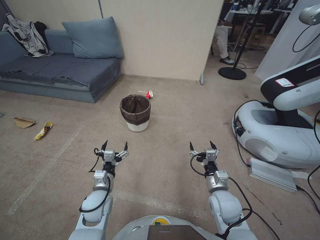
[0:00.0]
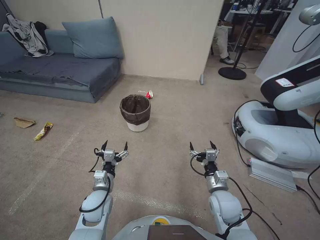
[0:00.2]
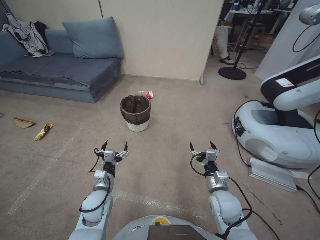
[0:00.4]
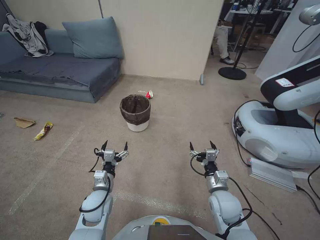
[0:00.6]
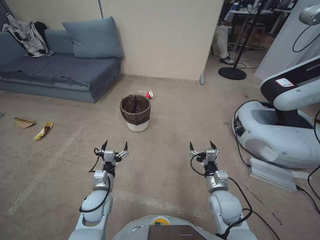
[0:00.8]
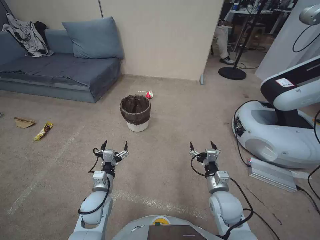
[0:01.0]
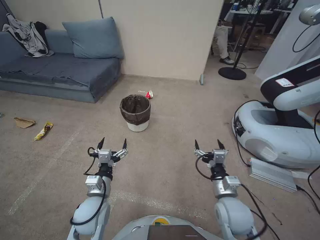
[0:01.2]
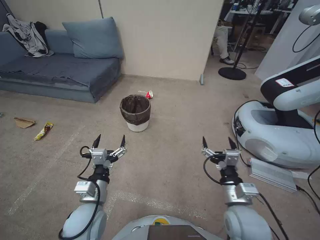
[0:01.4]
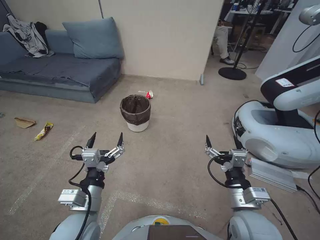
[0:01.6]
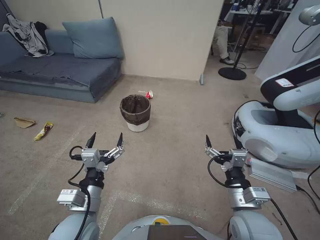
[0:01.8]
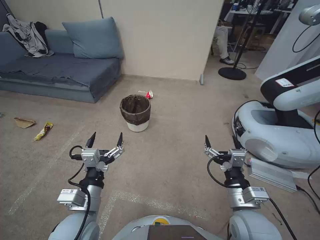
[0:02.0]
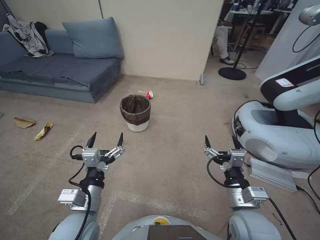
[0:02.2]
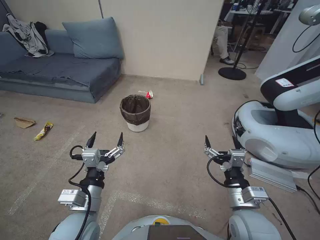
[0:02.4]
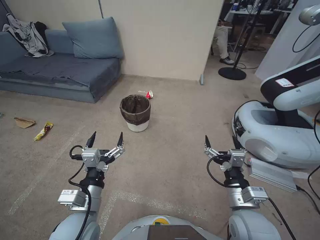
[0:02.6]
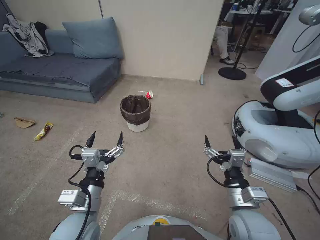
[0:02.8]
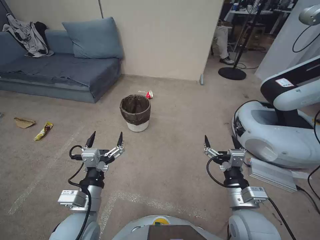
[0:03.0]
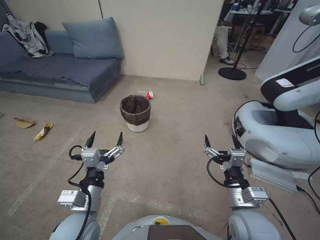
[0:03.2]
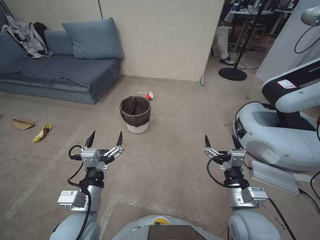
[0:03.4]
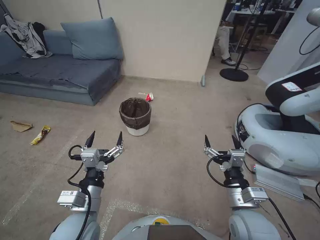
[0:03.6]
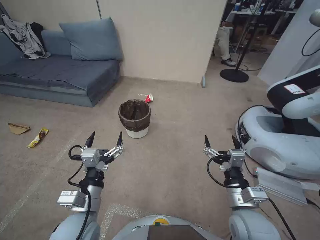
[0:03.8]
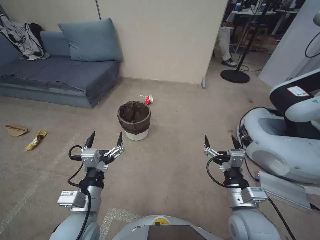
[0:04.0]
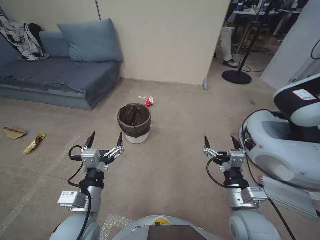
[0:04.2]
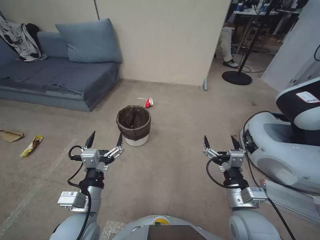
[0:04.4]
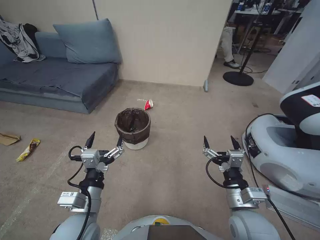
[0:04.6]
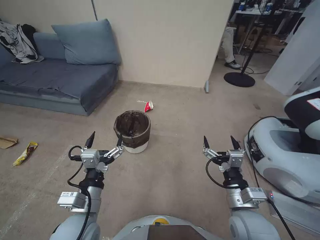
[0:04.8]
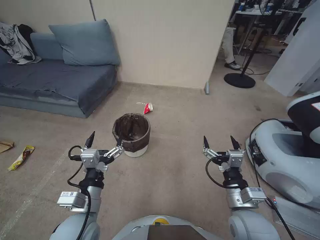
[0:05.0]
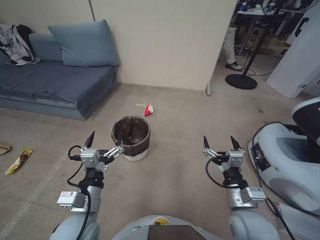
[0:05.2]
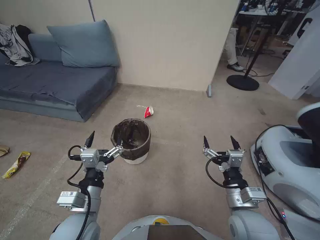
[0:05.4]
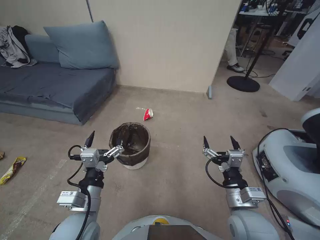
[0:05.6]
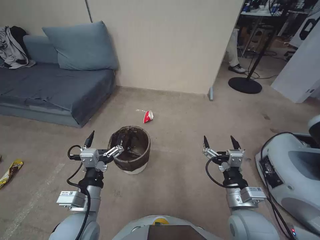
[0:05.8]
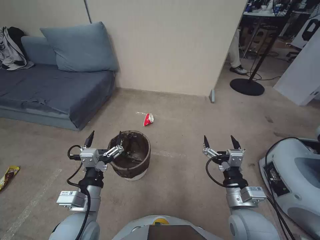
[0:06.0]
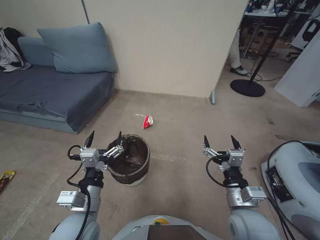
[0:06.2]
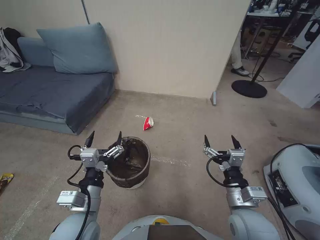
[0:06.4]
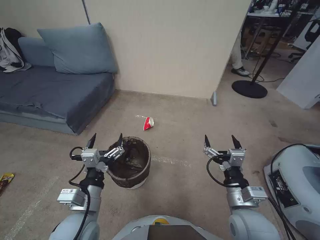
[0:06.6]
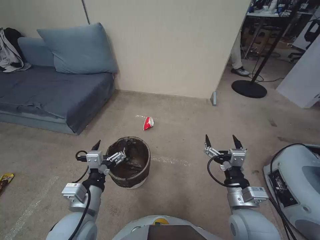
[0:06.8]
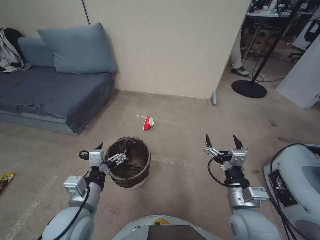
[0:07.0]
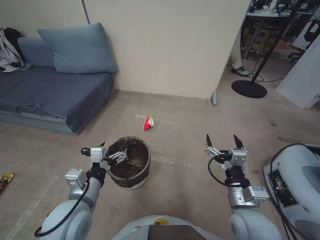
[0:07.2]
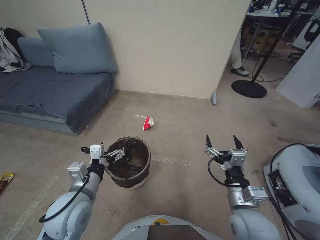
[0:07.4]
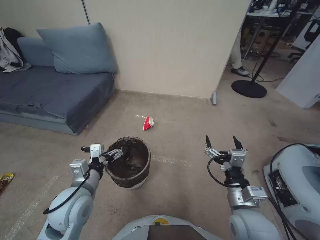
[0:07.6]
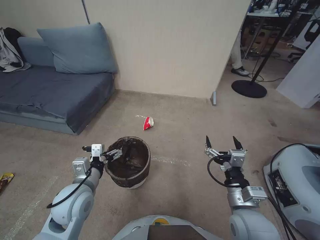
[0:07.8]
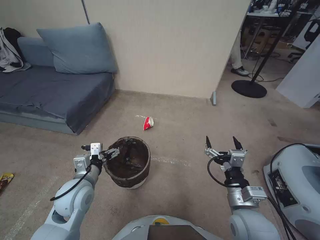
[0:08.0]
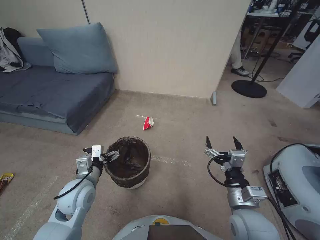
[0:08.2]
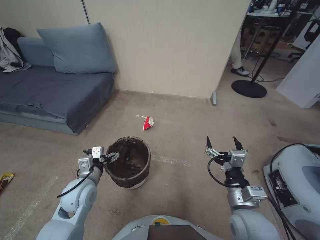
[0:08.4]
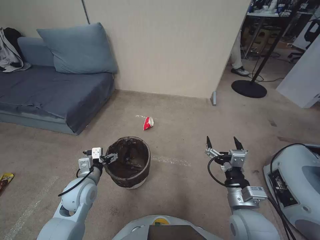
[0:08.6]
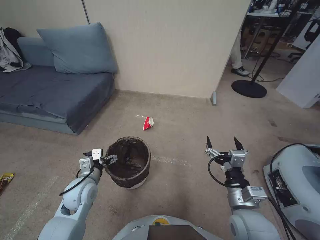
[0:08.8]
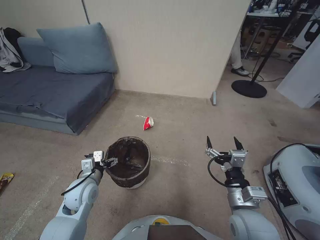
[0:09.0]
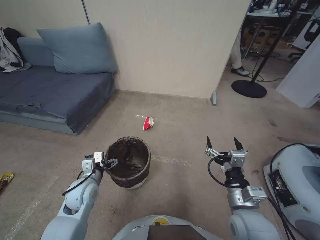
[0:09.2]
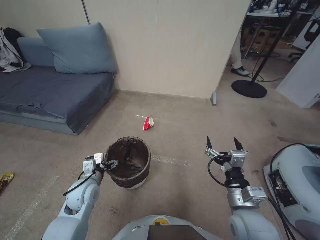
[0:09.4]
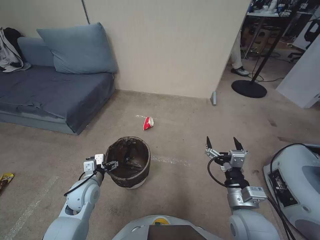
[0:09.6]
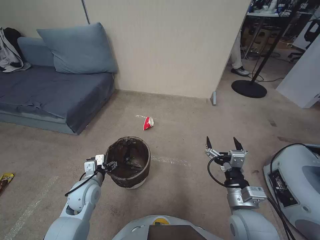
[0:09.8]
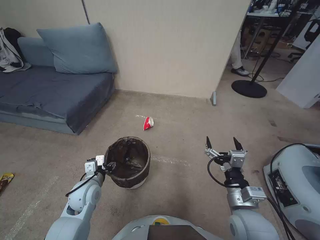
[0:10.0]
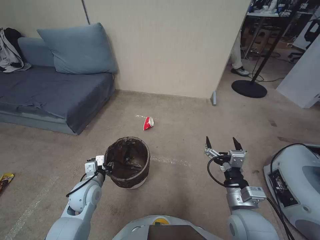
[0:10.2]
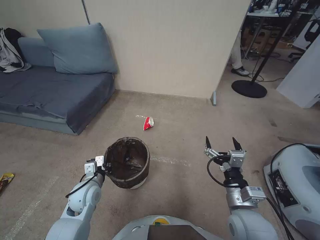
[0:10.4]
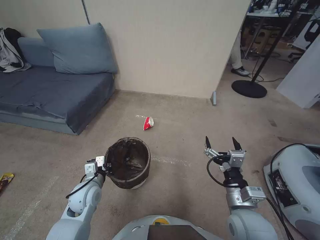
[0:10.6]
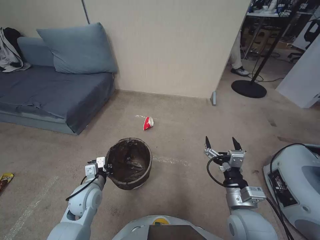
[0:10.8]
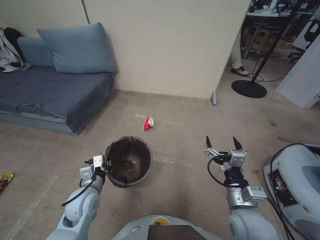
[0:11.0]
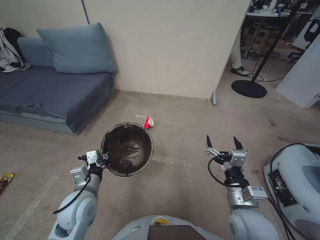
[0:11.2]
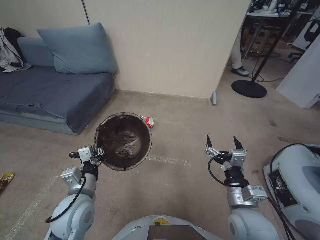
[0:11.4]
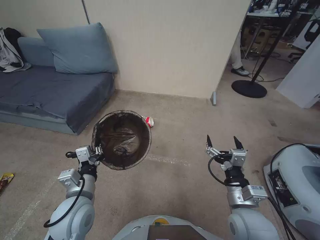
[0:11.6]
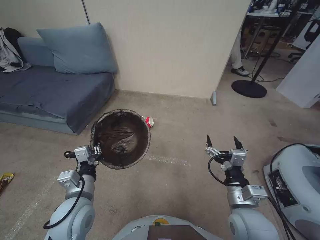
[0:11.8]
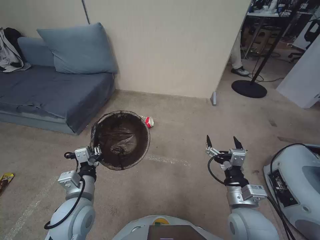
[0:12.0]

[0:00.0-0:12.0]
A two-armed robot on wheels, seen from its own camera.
Task of the whole recording: Pick up the trash bin, then pick up the garbage from the floor and place it into the trash bin.
0:01.6 to 0:03.0: Both grippers stay about where they are.
0:06.0 to 0:07.6: The left gripper is displaced forward by some 5 cm.
0:07.6 to 0:09.0: The left gripper is displaced downward and forward by about 10 cm.
0:09.0 to 0:10.4: The left gripper closes its fingers.
0:10.4 to 0:12.0: The left gripper shifts about 10 cm upward and backward.

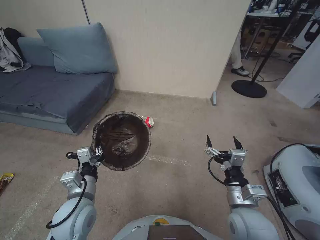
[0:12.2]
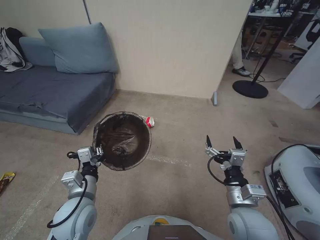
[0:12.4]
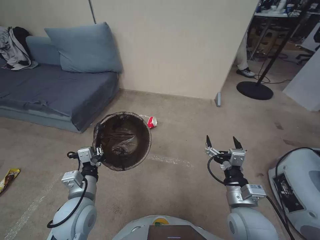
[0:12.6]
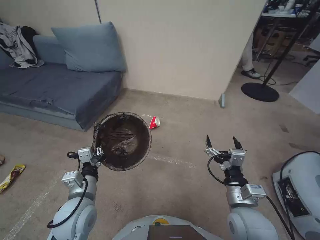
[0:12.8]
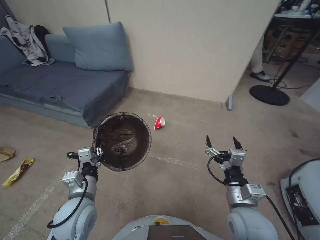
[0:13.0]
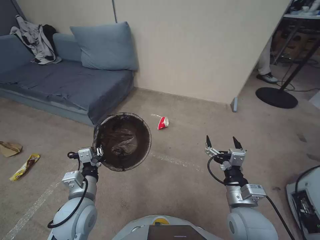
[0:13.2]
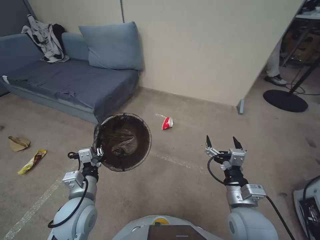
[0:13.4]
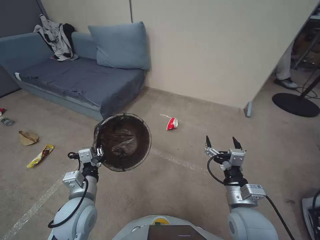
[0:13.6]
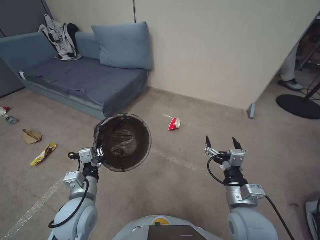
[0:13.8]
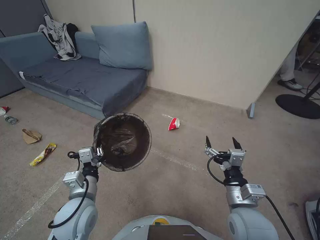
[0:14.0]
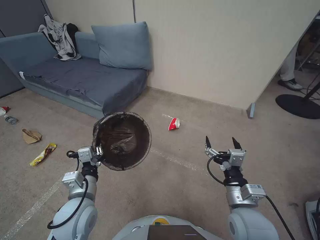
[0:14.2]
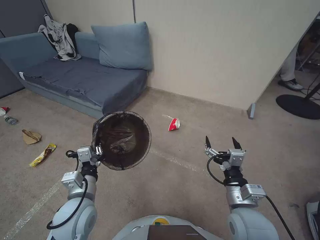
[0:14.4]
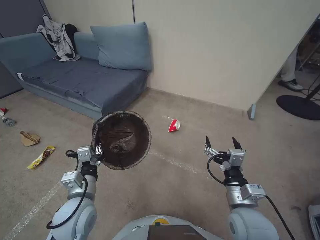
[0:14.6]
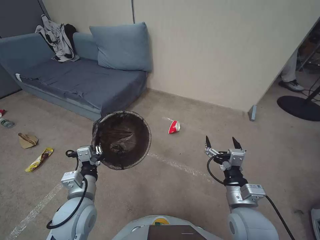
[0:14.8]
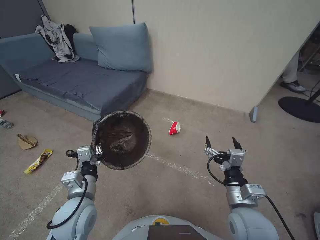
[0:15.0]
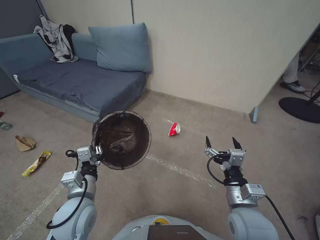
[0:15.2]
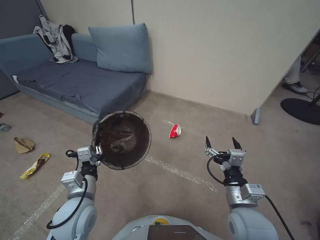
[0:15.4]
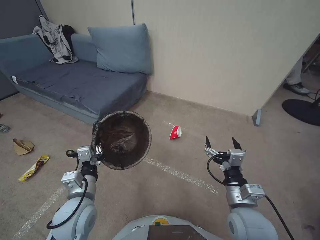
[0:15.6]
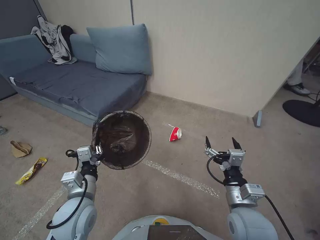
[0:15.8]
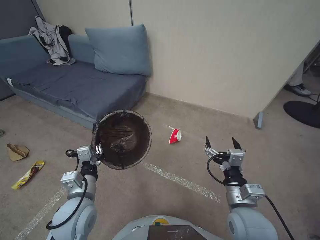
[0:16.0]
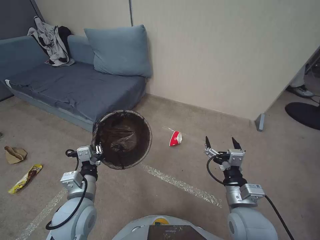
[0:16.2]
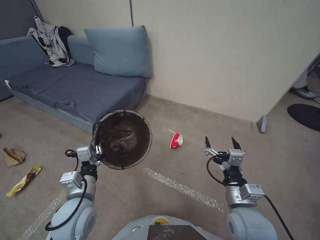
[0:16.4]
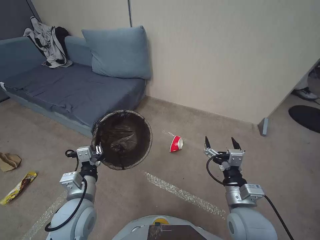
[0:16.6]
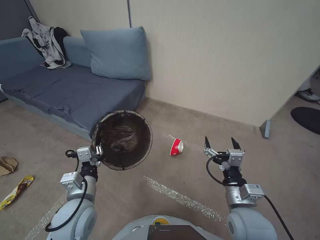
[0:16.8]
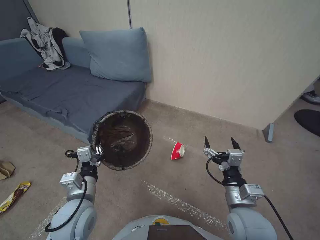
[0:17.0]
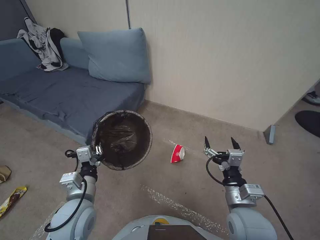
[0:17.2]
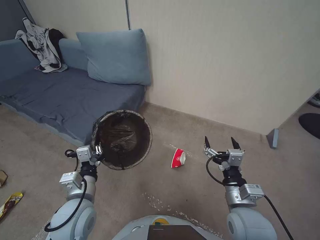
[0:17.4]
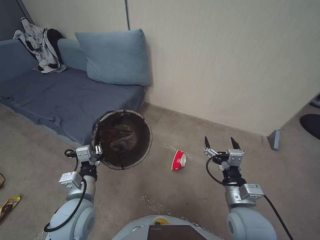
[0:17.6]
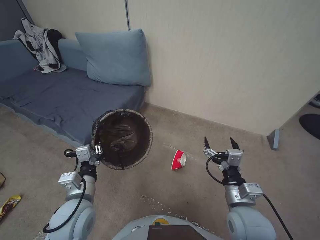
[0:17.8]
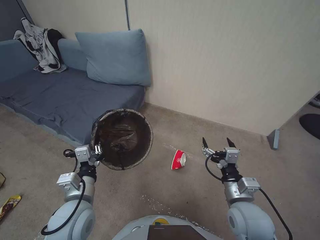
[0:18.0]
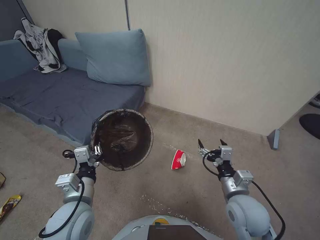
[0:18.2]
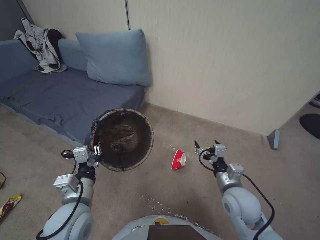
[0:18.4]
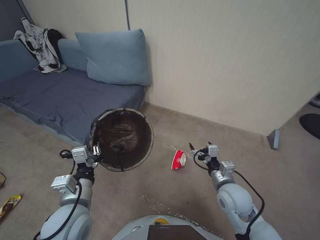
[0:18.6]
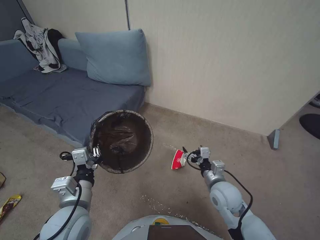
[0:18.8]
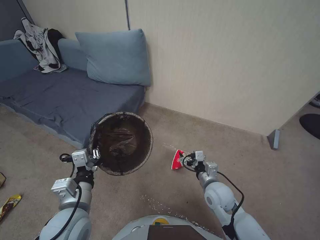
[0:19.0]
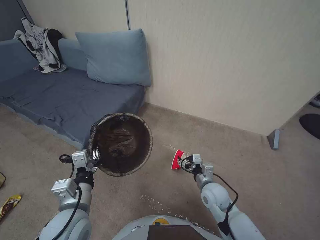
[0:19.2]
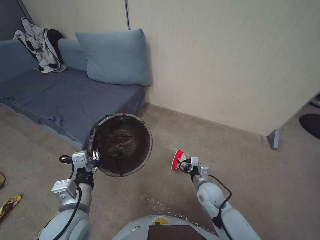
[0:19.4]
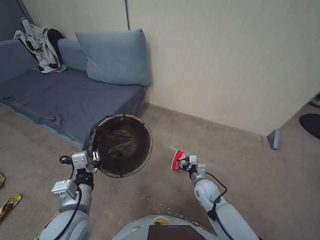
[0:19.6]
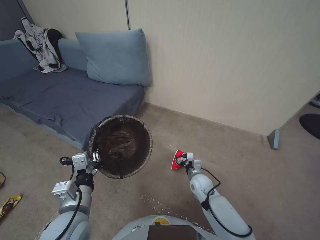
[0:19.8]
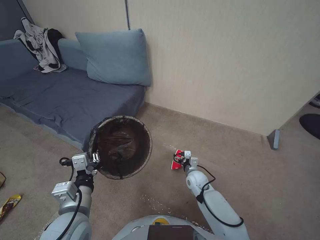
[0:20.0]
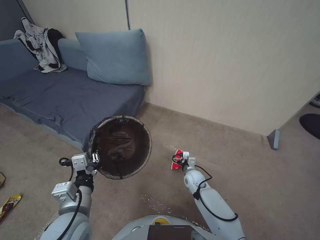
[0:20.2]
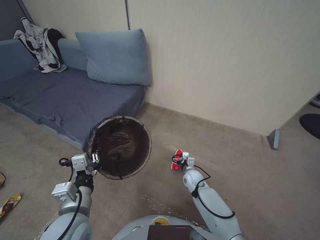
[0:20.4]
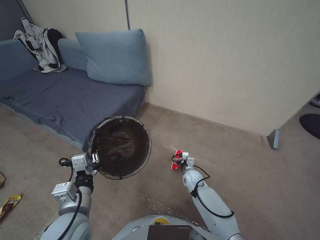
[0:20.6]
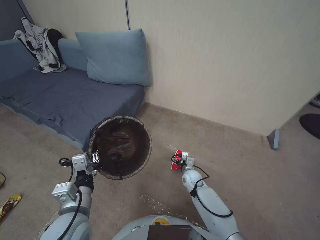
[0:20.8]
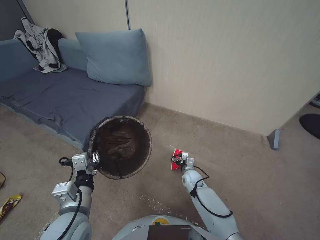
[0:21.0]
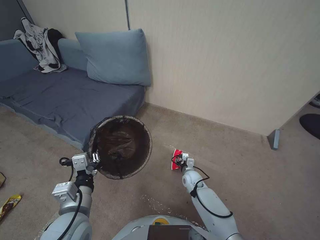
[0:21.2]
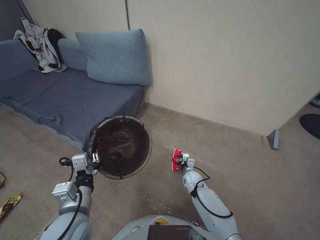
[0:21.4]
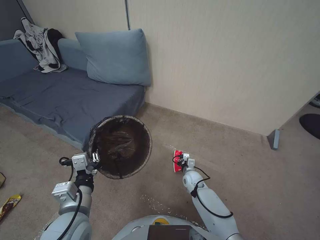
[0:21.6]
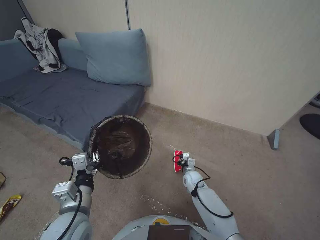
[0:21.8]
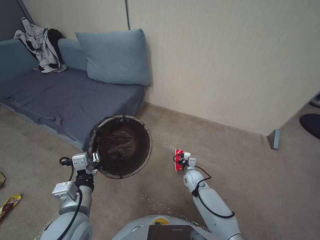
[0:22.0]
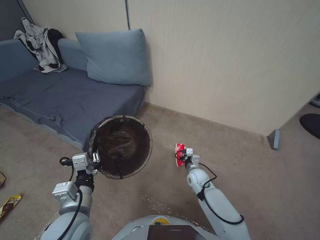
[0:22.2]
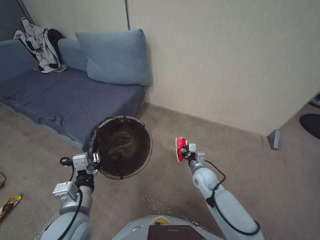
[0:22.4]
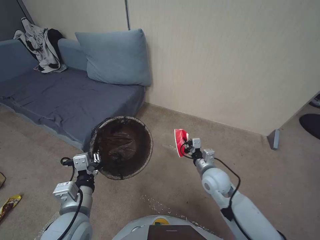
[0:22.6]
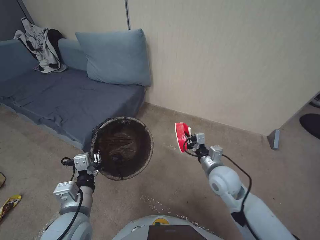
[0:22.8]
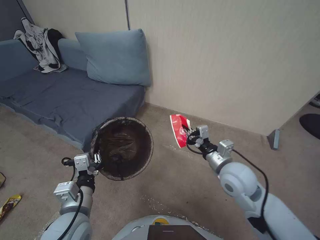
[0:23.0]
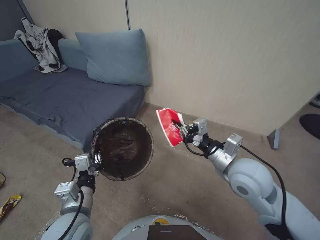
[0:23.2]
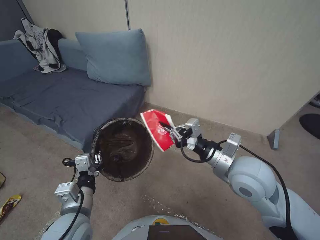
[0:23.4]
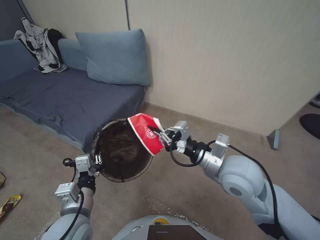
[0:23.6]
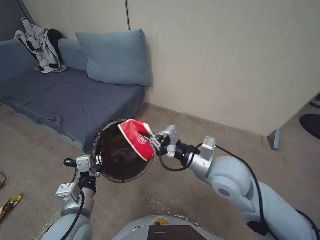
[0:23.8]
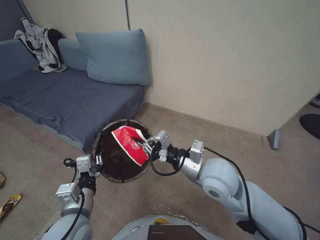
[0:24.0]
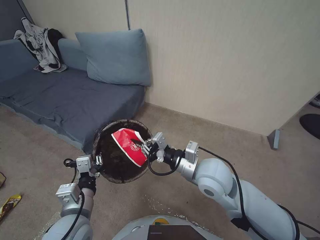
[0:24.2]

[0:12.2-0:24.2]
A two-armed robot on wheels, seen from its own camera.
Task of the whole recording: Pick up the trash bin, then pick up the garbage from the floor and place it into the trash bin.
0:13.8 to 0:16.6: Both grippers stay about where they are.
0:16.6 to 0:18.2: The grippers move only a little.
0:18.2 to 0:19.8: The right gripper moves downward and forward, roughly 20 cm.
0:19.8 to 0:21.2: The right gripper travels downward by about 5 cm, and closes its fingers.
0:21.2 to 0:22.6: The right gripper travels upward by approximately 15 cm, and closes its fingers.
0:22.6 to 0:24.2: The right gripper travels upward and to the left by roughly 15 cm.
